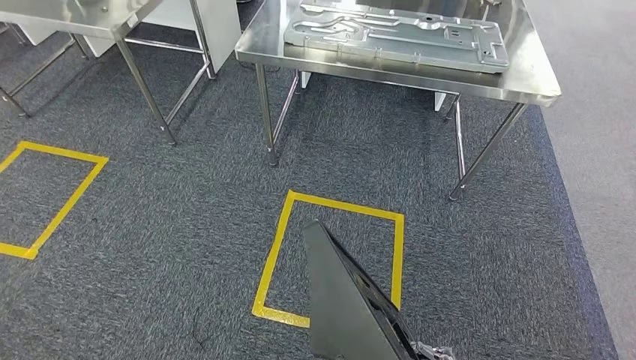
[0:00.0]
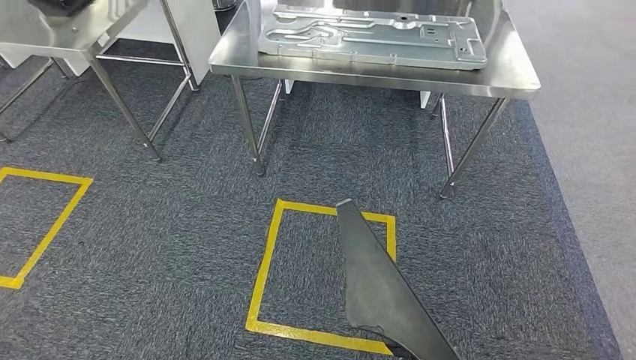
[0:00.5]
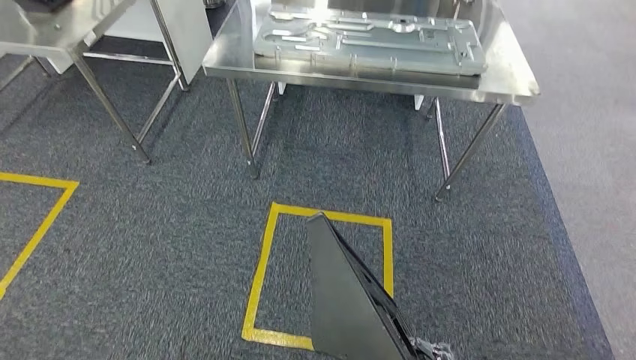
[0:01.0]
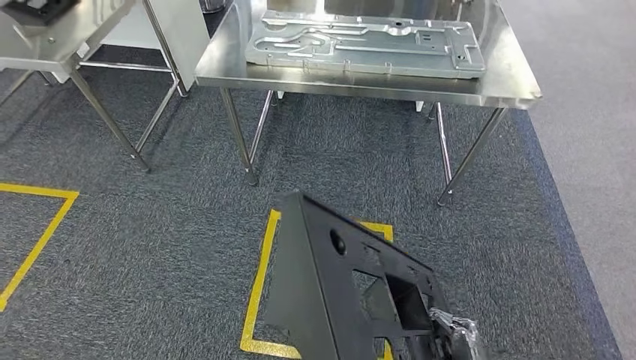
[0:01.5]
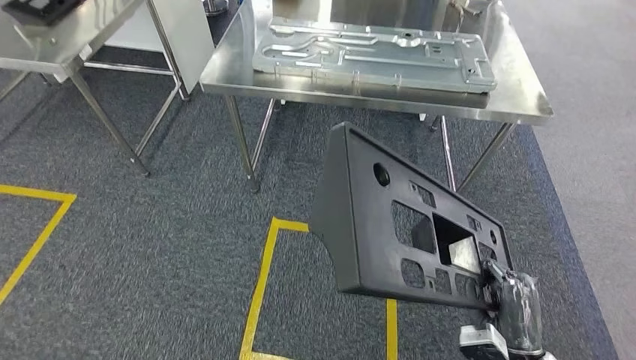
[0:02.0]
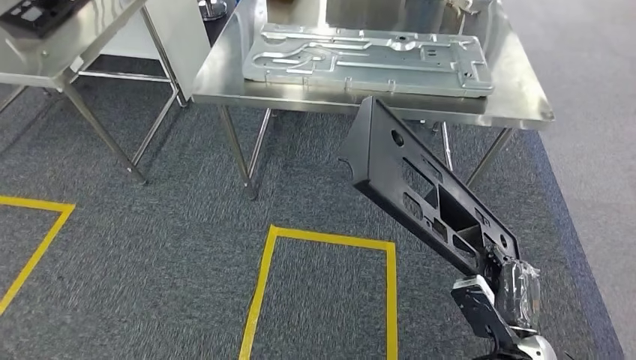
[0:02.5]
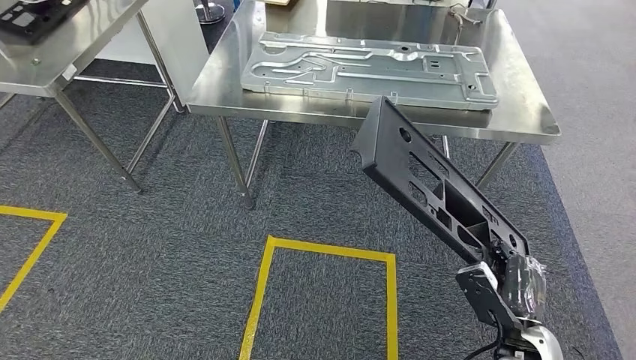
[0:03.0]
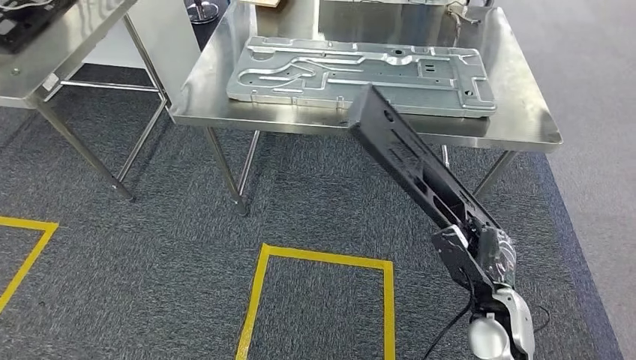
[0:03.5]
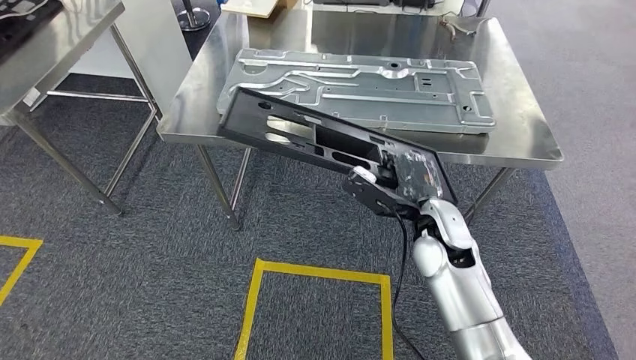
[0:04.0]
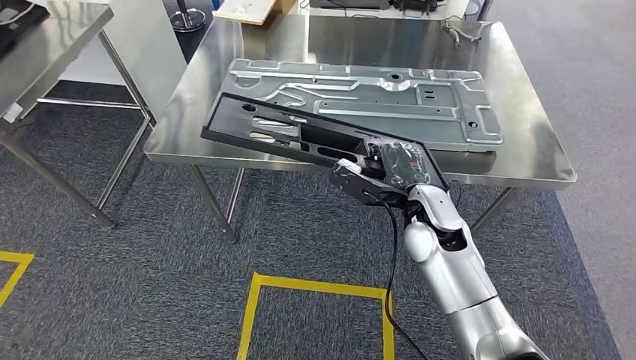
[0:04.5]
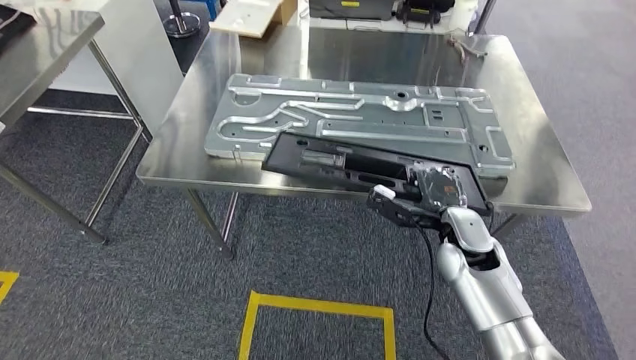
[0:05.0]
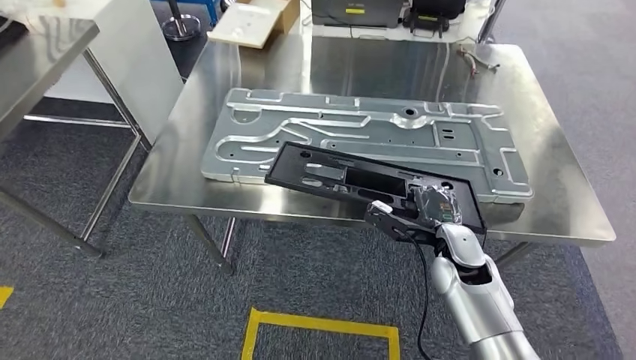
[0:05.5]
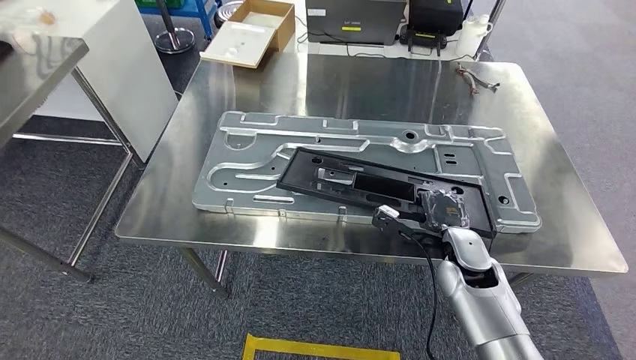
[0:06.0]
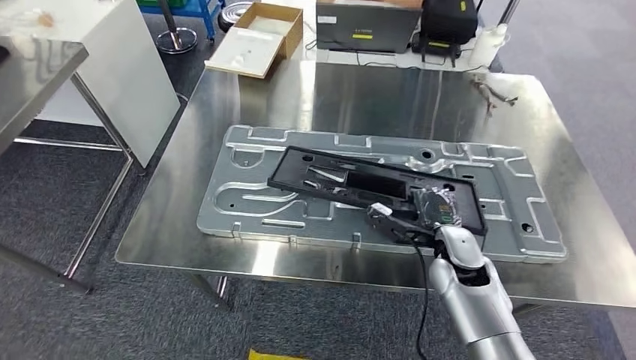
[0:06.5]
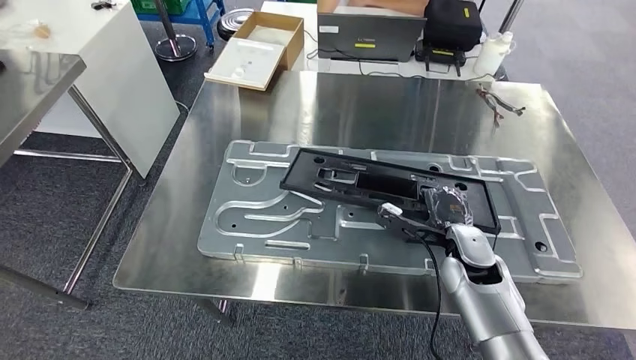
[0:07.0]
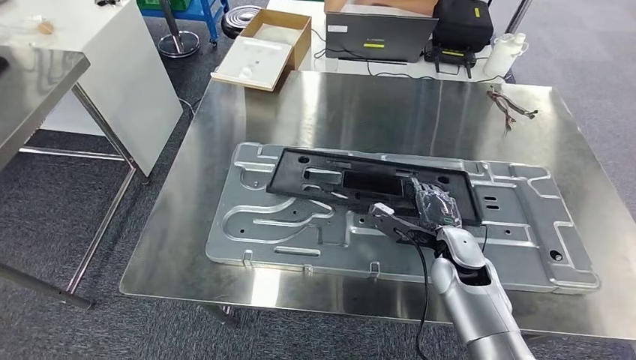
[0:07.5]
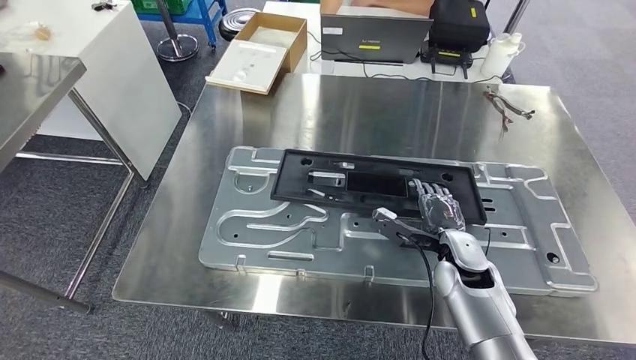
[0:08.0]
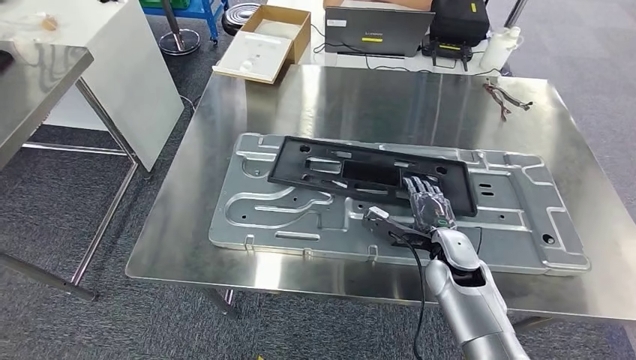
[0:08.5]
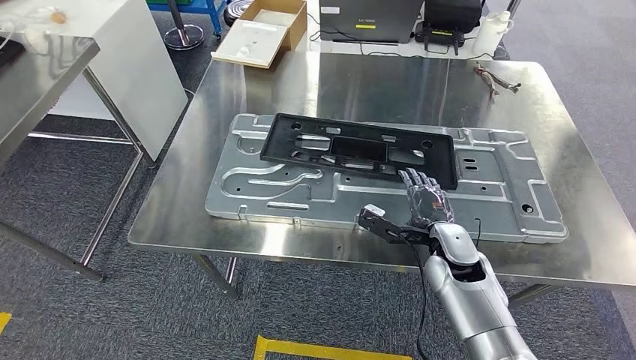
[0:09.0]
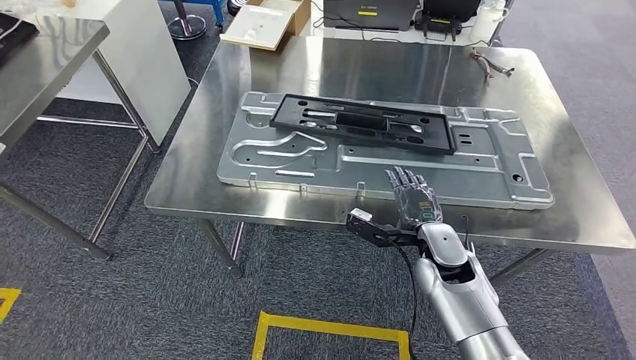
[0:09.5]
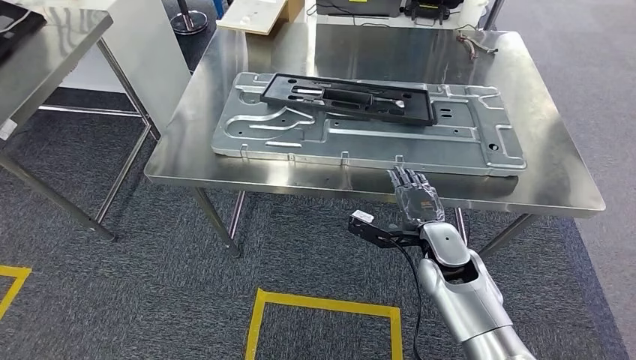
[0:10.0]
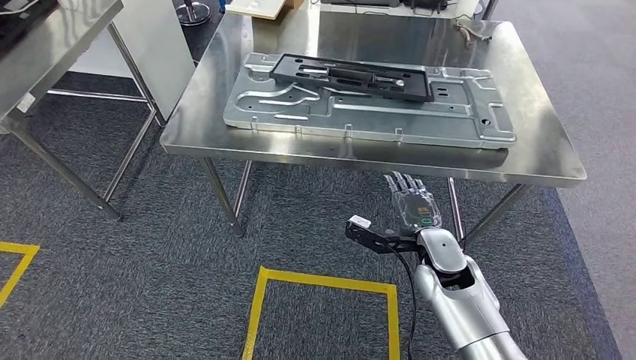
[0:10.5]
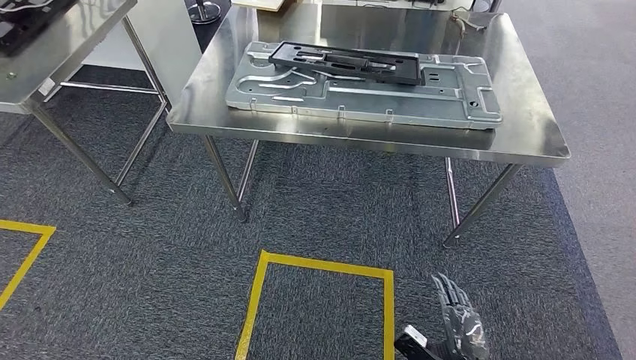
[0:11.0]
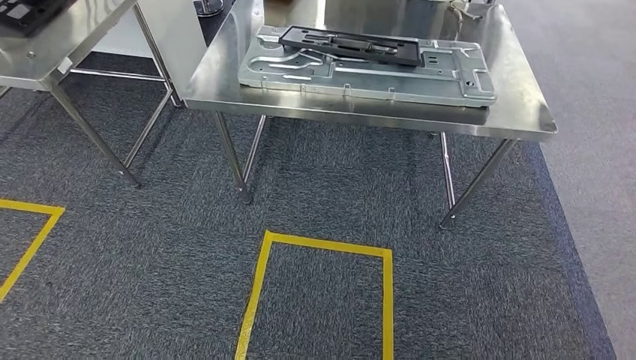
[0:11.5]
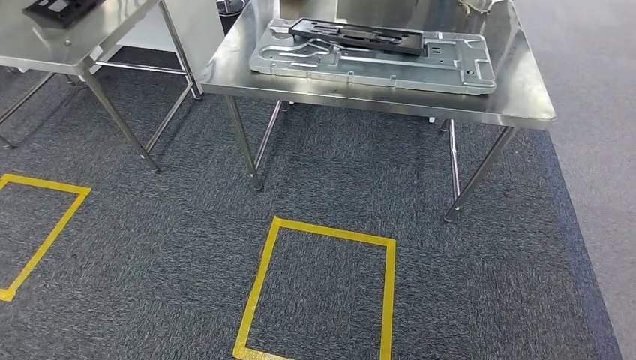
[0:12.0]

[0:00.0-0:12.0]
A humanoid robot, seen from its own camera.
Step, 0:00.0 to 0:03.0: Move the large material to the workbench.
Step, 0:05.0 to 0:12.0: Insert the large material into the corresponding slot on the workbench.

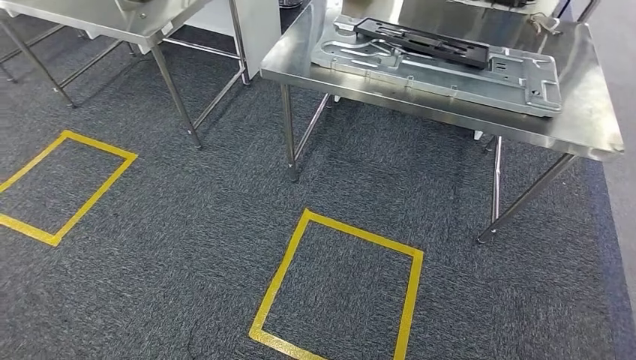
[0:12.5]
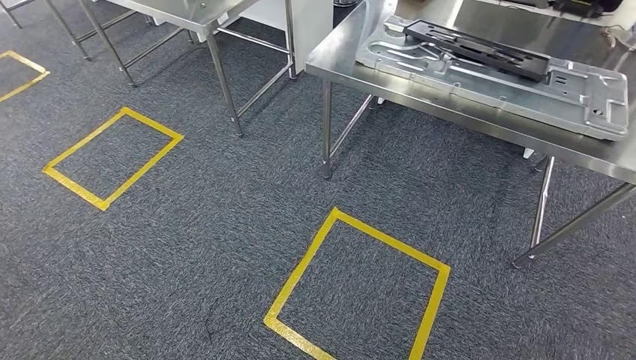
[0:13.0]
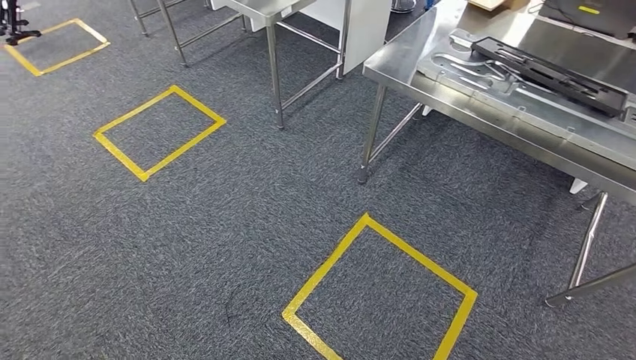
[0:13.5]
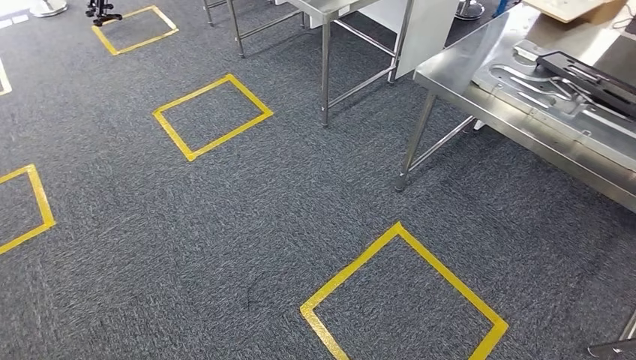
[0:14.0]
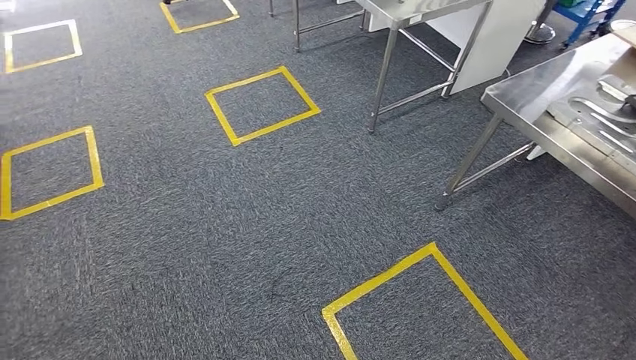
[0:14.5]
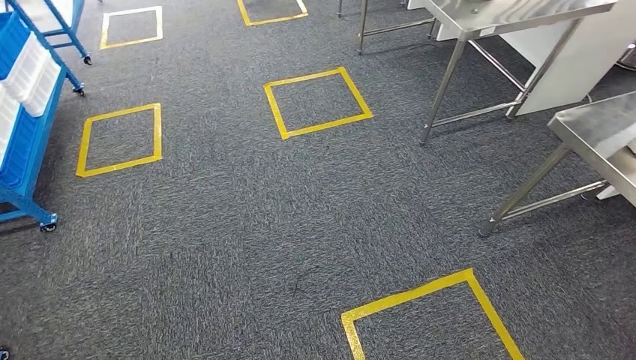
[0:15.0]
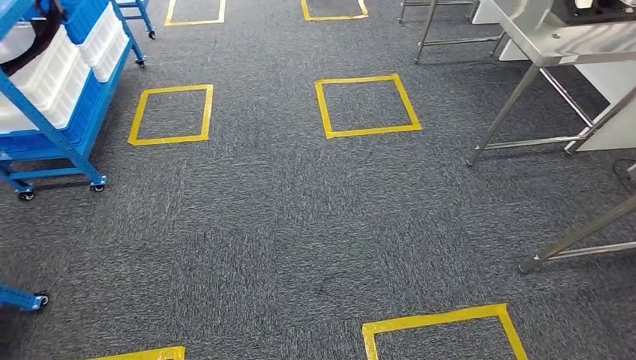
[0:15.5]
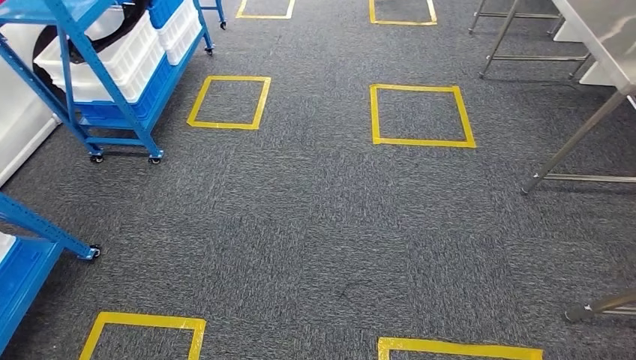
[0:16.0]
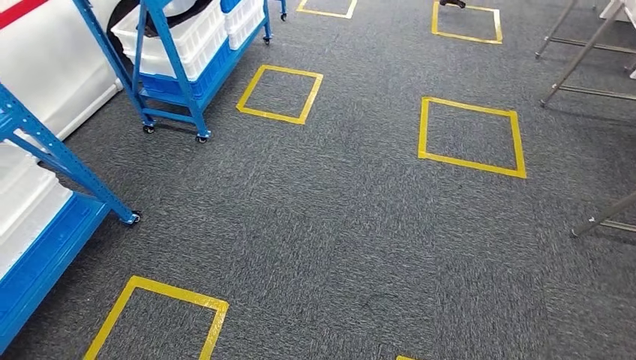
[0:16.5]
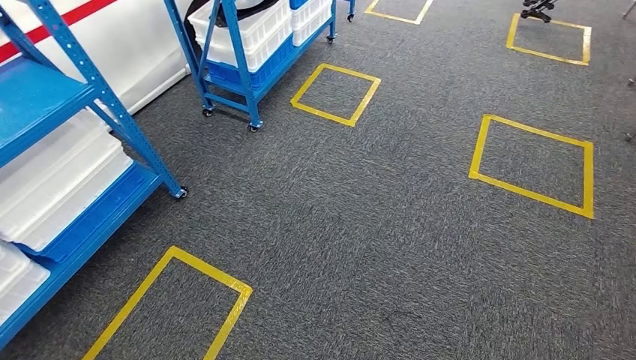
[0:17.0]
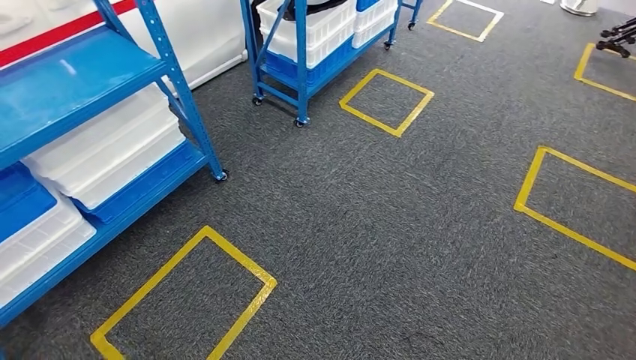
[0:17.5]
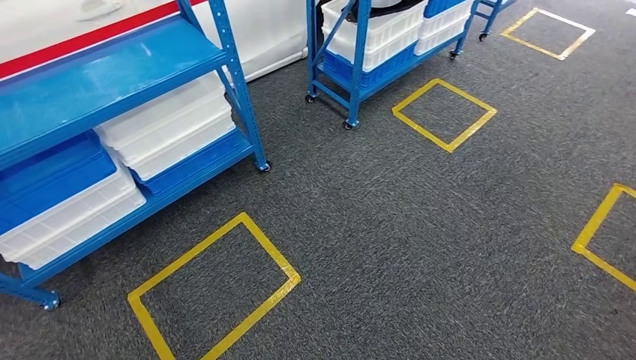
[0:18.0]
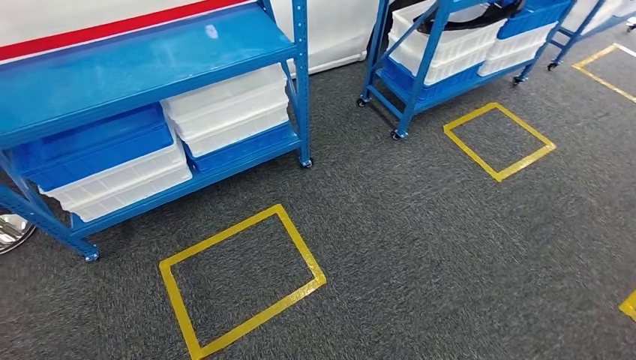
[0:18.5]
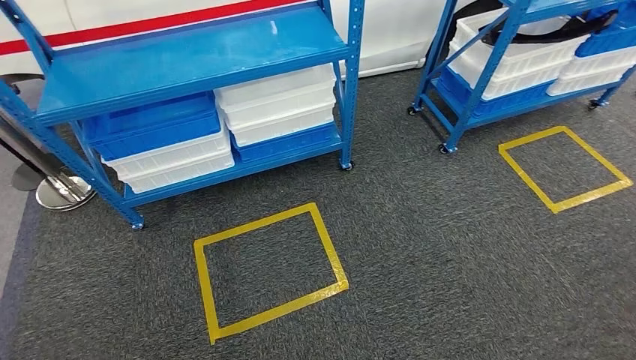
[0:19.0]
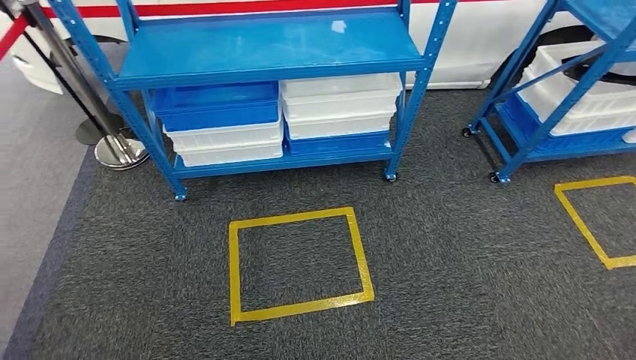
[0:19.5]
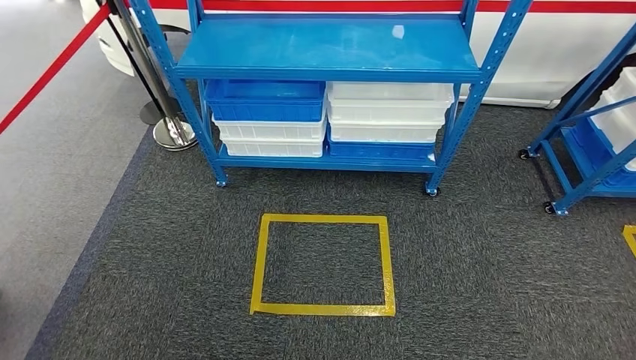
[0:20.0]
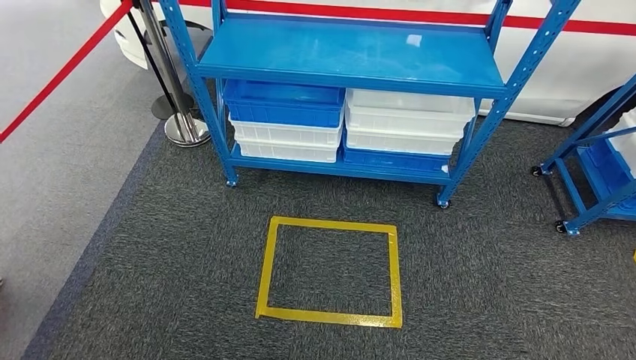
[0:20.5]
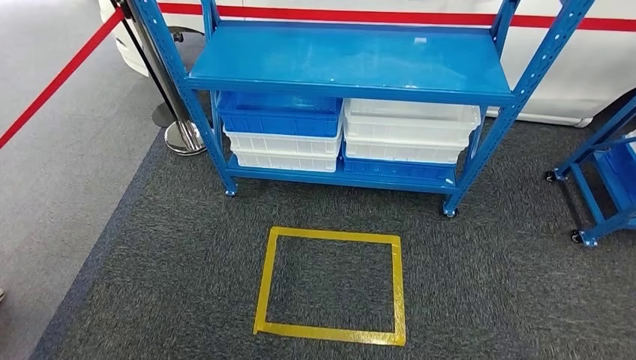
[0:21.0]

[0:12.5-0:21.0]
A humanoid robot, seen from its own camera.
Step, 0:15.0 to 0:21.0: Return to the initial position at the shelf.
